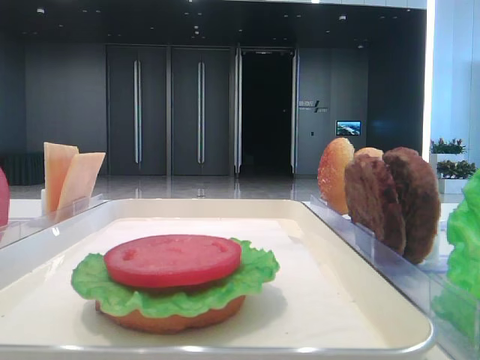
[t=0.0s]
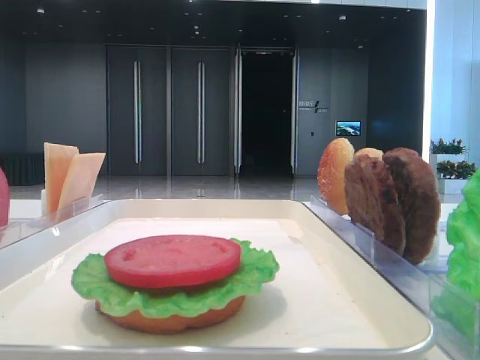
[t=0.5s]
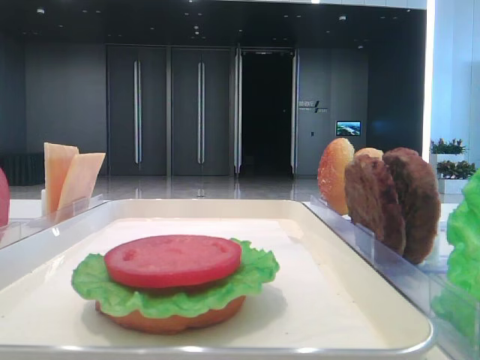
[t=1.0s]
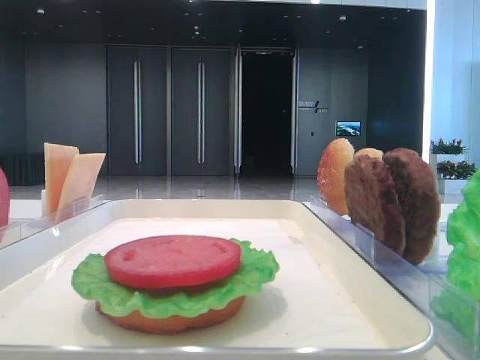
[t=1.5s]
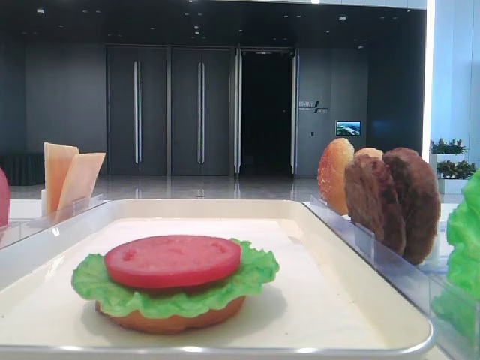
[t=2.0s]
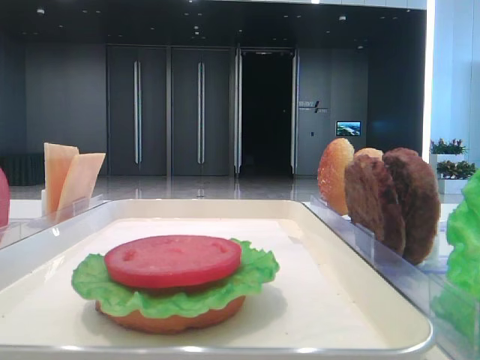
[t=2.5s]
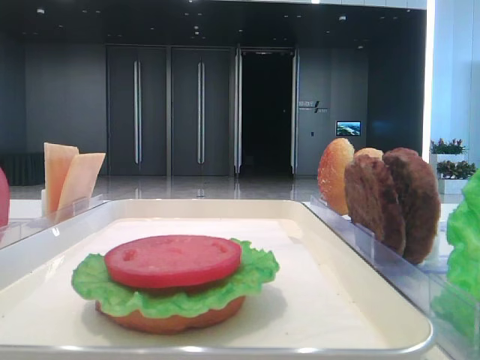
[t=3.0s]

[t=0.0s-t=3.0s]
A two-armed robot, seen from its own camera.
t=1.5s to t=3.0s: The two grippers keep their place.

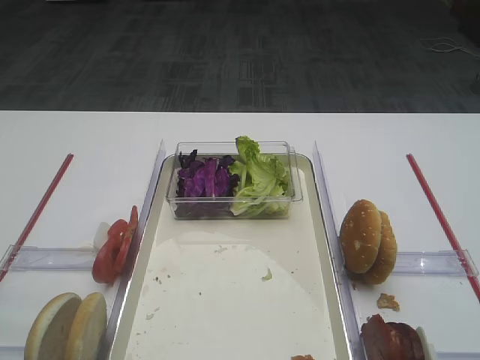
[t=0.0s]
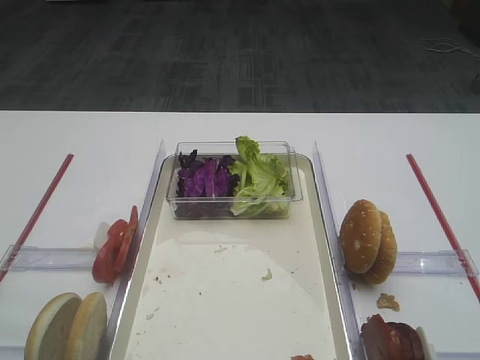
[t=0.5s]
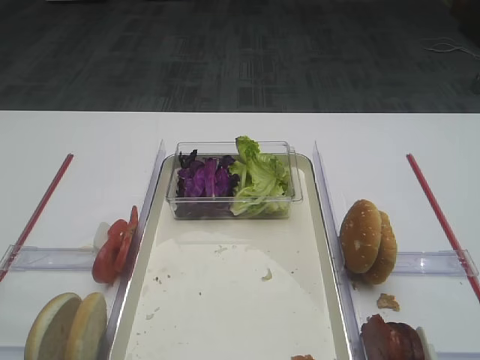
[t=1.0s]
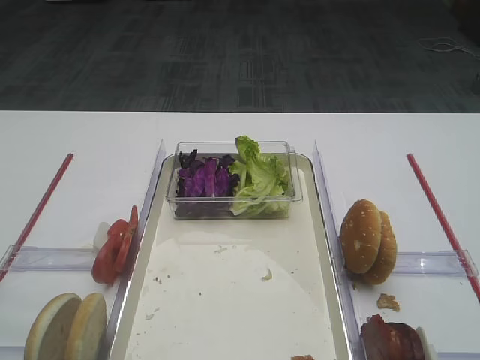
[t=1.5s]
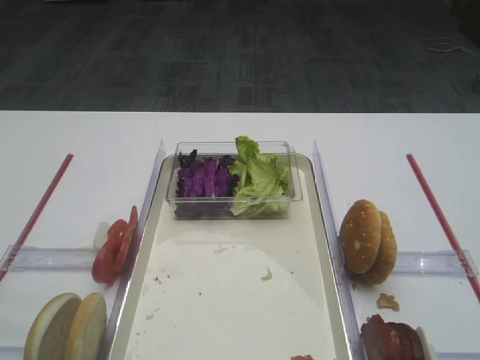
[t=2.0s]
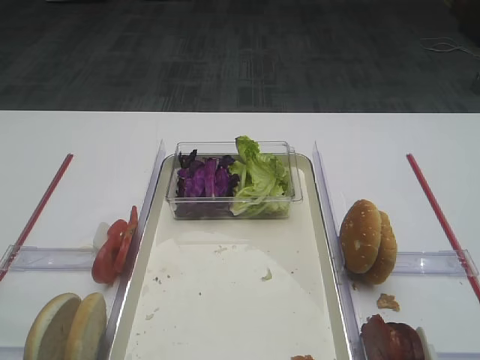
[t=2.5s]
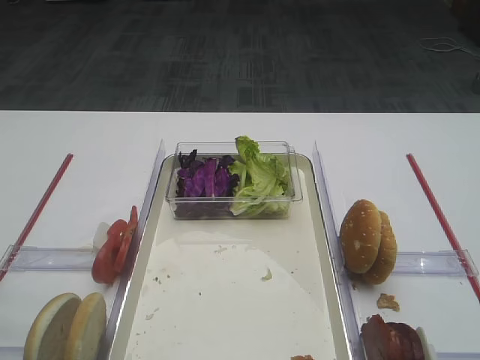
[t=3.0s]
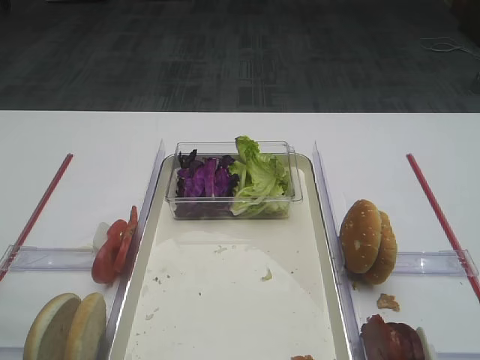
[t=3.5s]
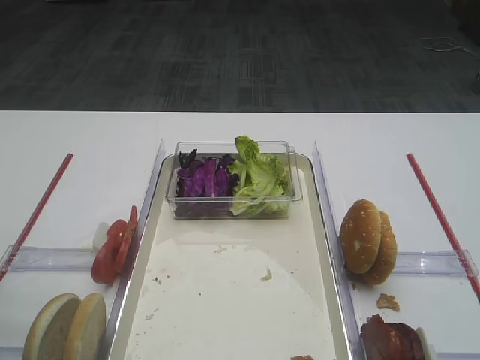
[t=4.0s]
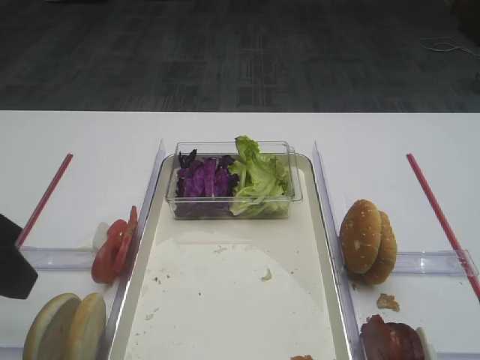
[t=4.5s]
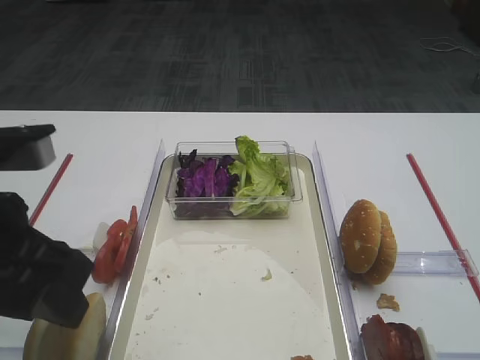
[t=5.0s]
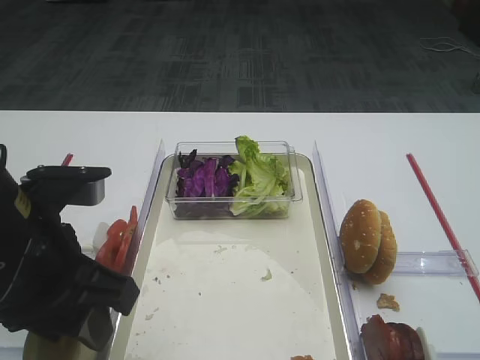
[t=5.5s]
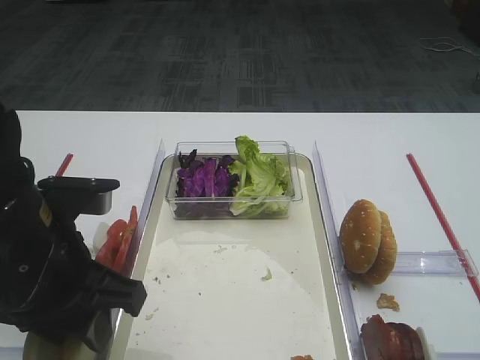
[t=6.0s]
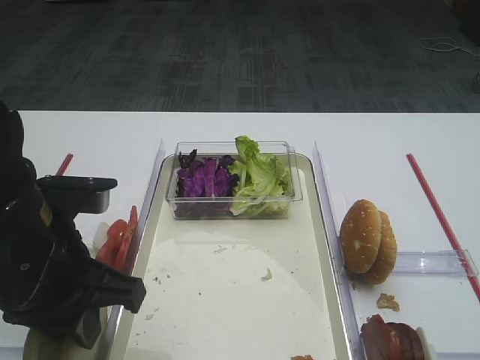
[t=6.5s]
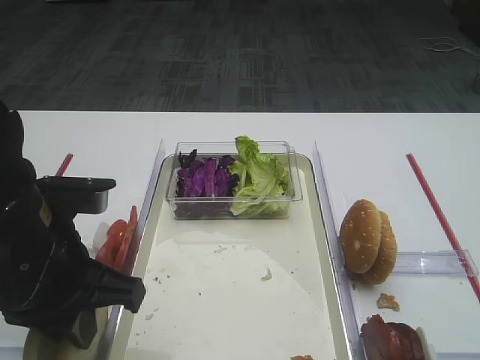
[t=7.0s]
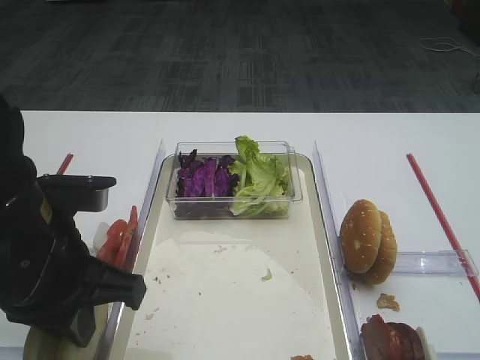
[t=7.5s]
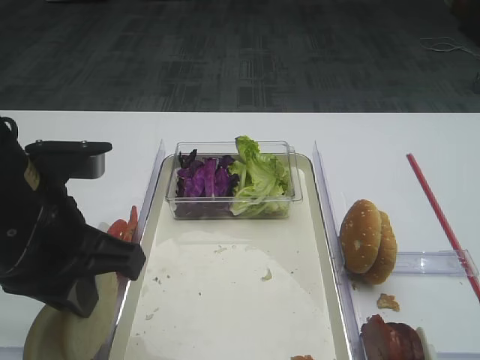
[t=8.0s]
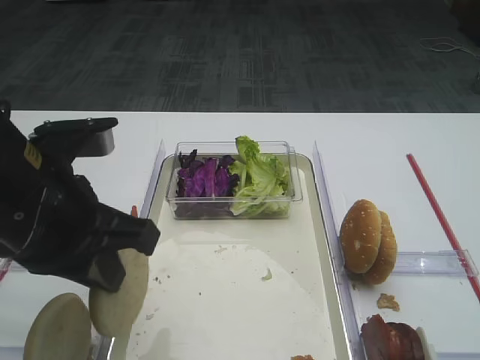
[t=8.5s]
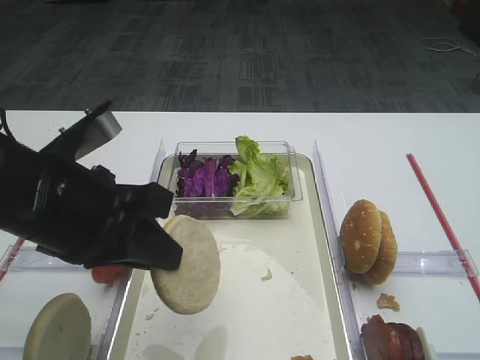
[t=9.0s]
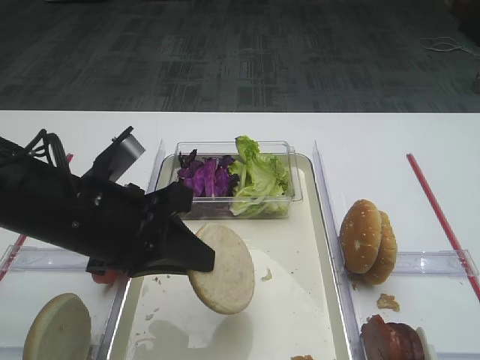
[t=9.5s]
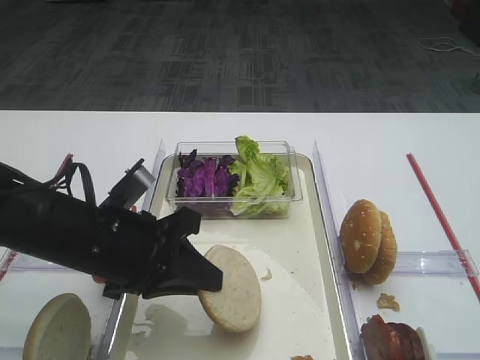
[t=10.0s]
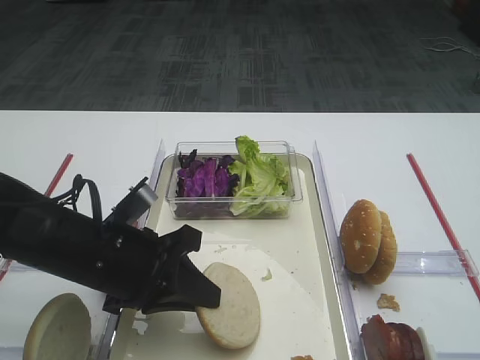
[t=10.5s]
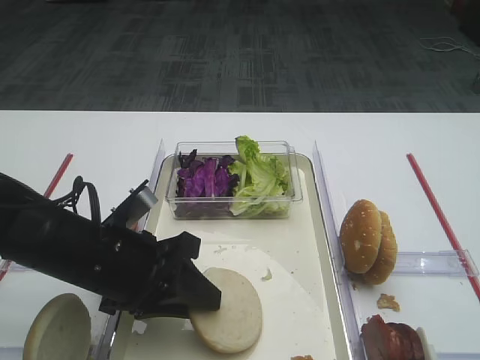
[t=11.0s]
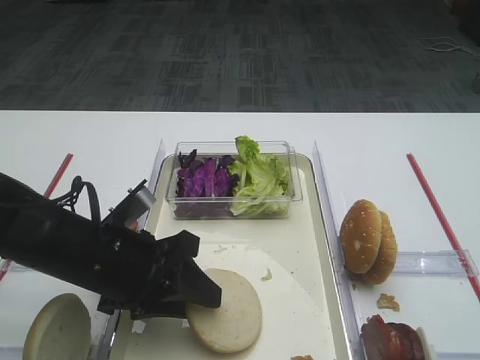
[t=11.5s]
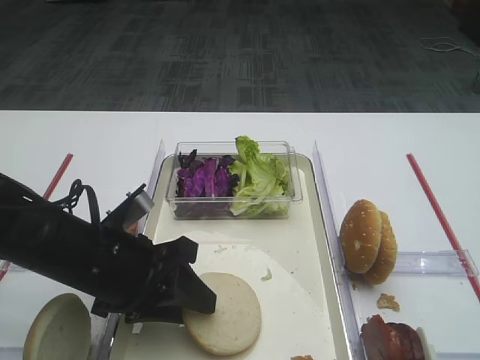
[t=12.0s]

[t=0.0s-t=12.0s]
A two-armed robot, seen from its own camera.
Step, t=0.0s to t=8.0s: Pick up the bread slice with the left gripper.
t=4.0s to t=6.0s: The left gripper travels to the right and downward by about 15 cm.
t=6.0s to t=8.0s: The left gripper closes its fingers.
t=8.0s to t=10.0s: The left gripper is displaced downward by about 10 cm.
t=10.0s to t=12.0s: The left gripper opens its fingers.

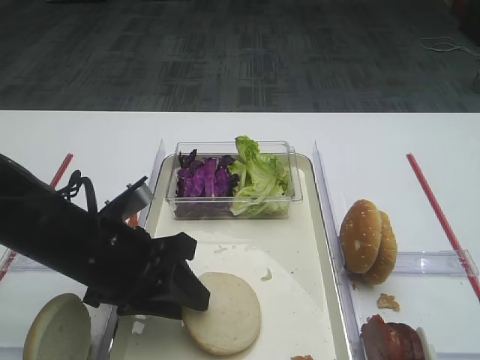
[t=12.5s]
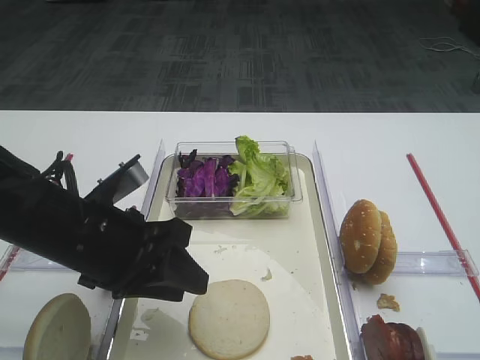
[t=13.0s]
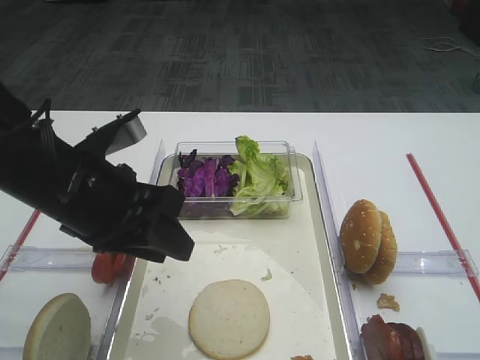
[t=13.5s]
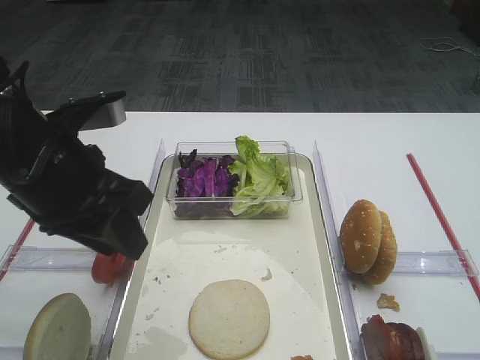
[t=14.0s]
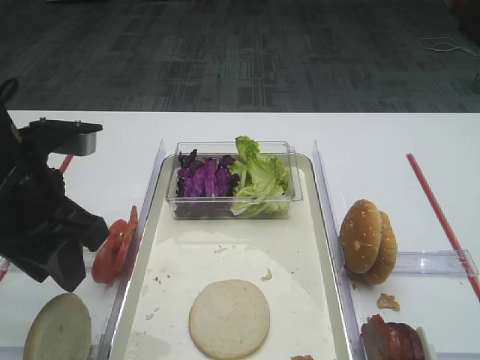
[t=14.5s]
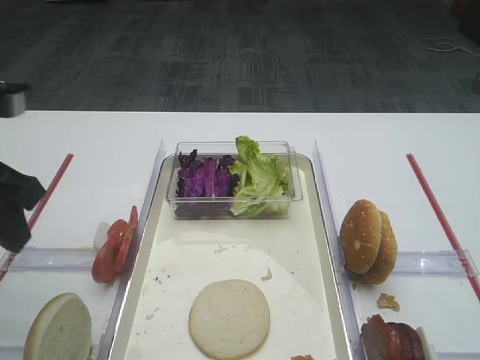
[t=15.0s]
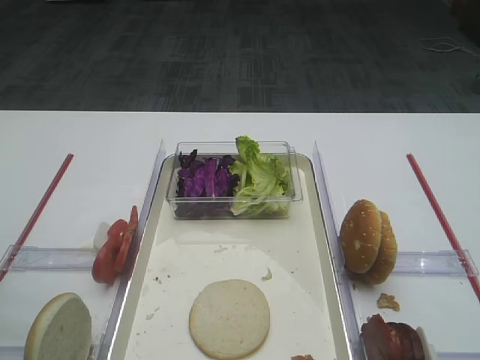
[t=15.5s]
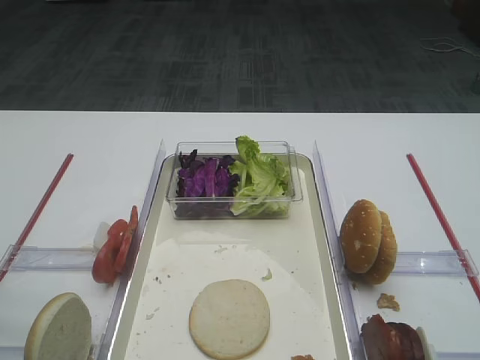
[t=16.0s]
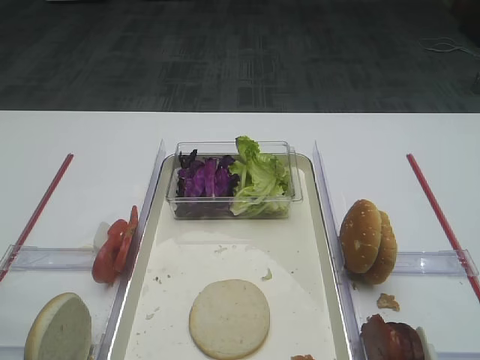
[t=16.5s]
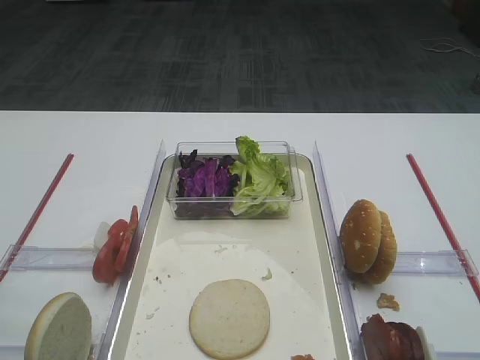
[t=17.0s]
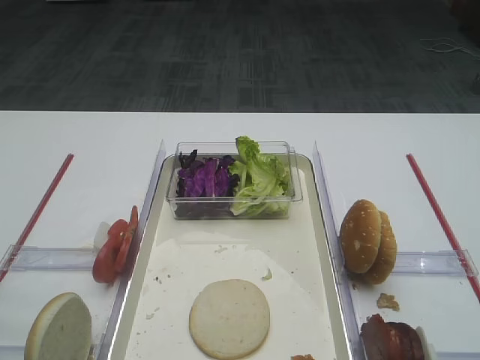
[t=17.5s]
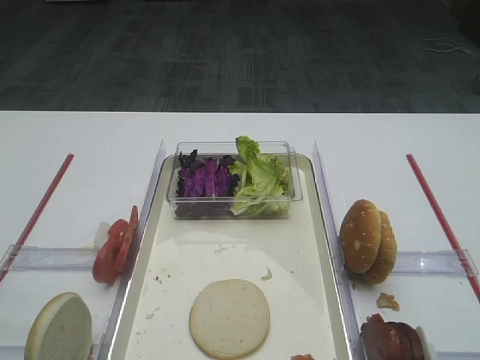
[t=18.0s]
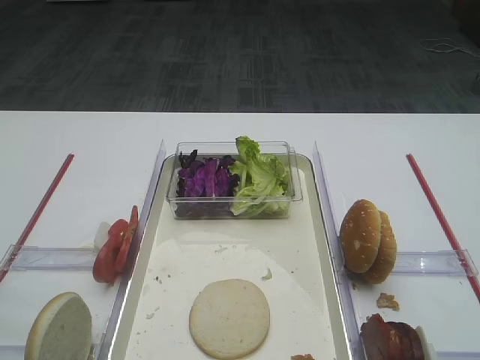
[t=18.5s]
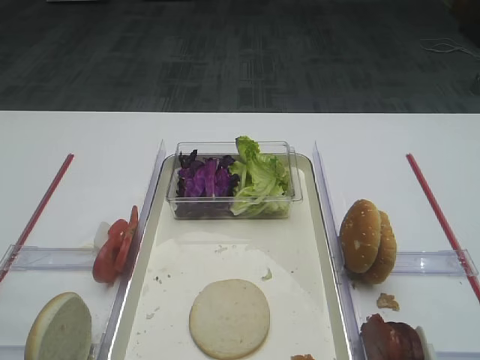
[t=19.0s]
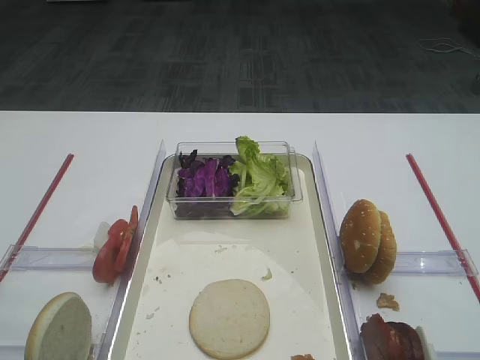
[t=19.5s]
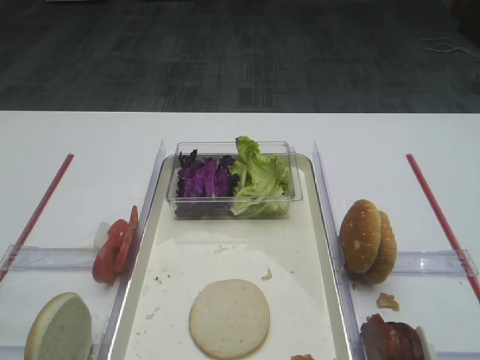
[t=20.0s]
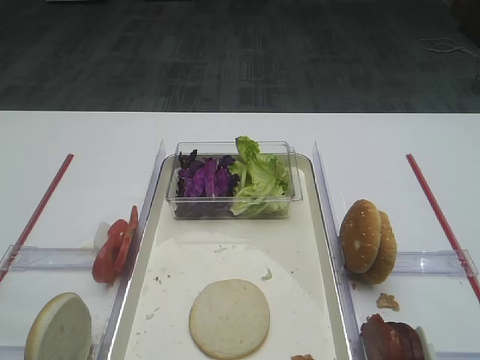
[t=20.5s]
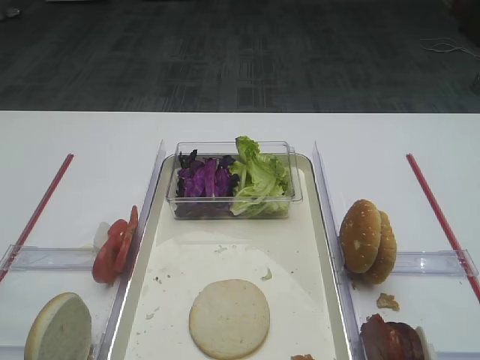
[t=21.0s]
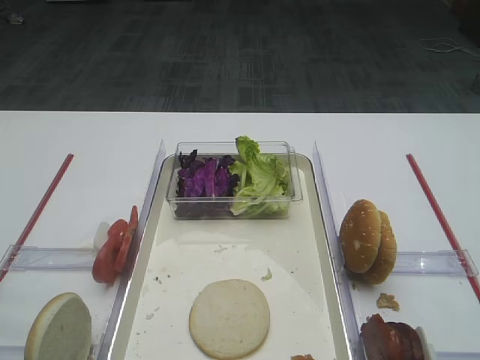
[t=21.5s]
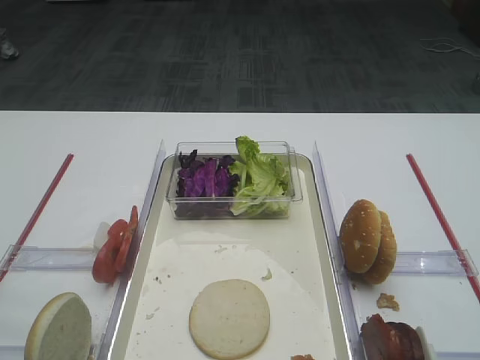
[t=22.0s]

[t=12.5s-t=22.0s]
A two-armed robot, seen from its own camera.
t=12.5s to t=14.5s: The left gripper heads upward and to the left, covering some 10 cm.
t=14.5s to t=16.5s: The left gripper moves backward and to the left, roughly 15 cm.
t=20.0s to t=22.0s: Both grippers stay put.
